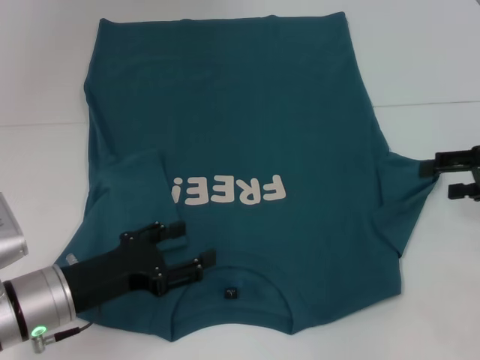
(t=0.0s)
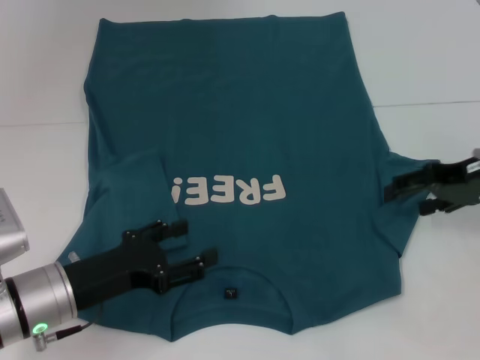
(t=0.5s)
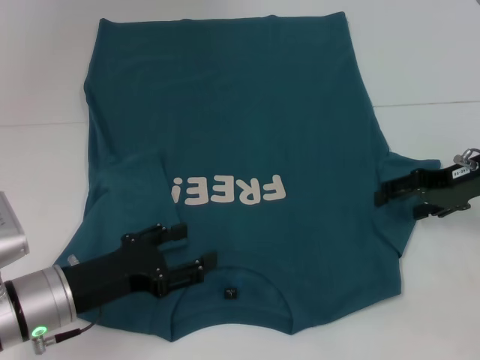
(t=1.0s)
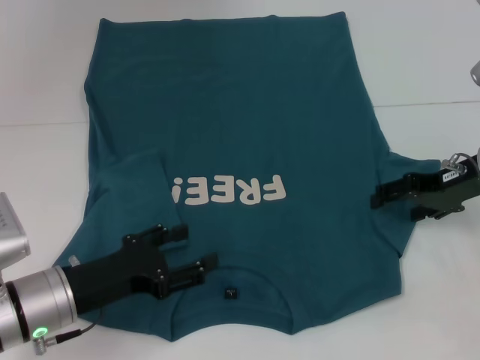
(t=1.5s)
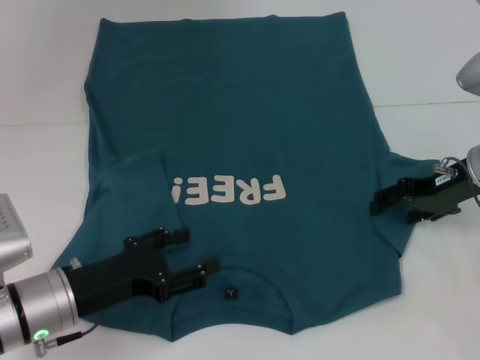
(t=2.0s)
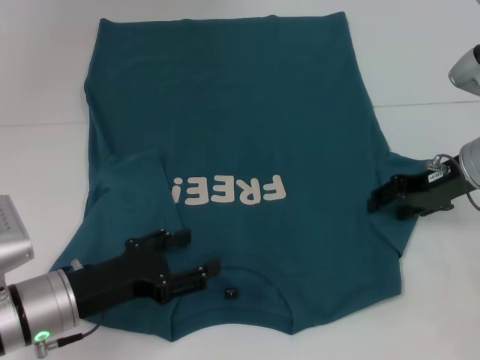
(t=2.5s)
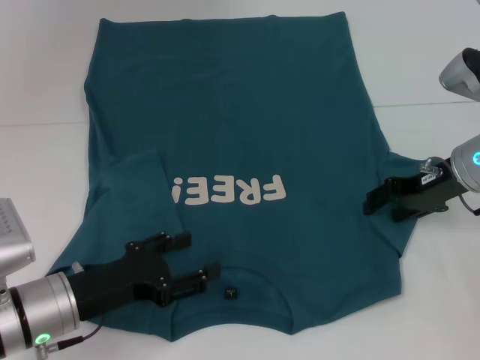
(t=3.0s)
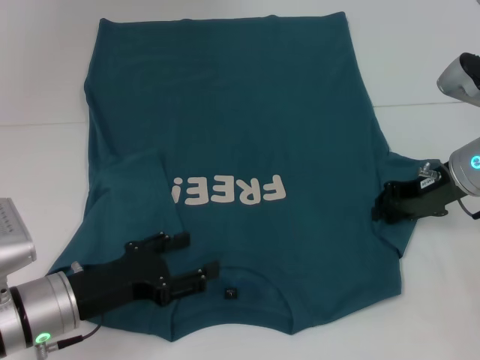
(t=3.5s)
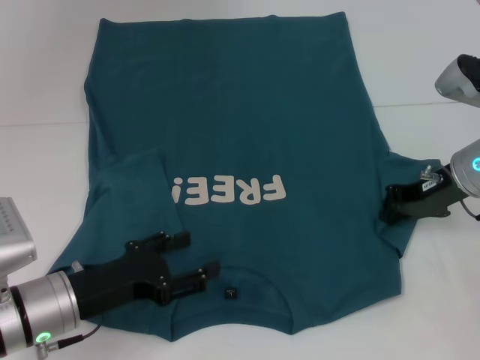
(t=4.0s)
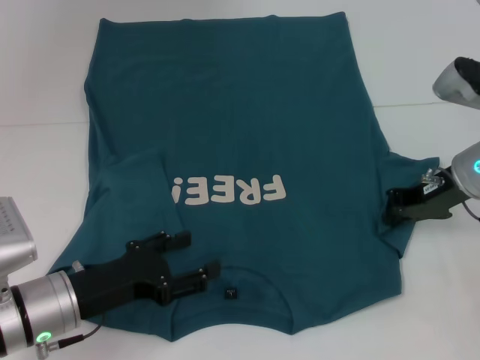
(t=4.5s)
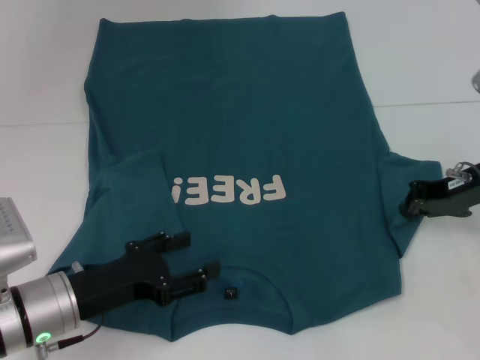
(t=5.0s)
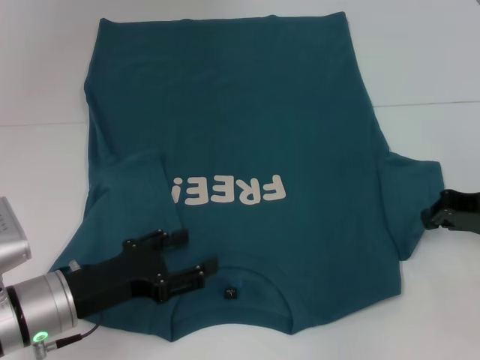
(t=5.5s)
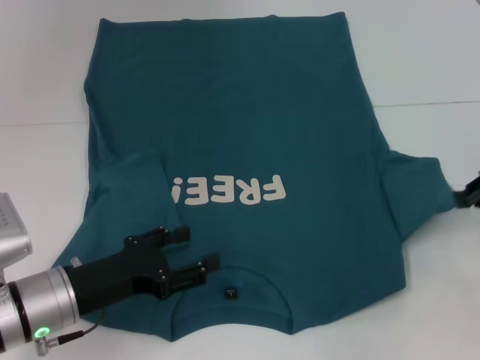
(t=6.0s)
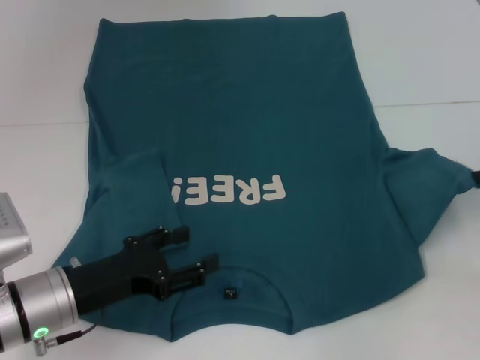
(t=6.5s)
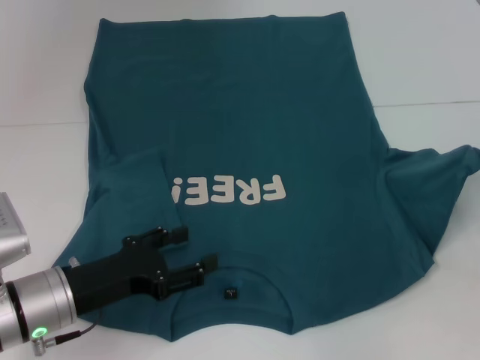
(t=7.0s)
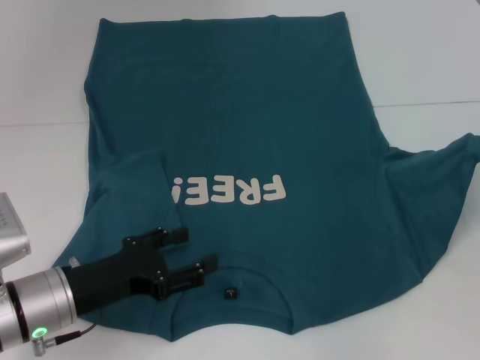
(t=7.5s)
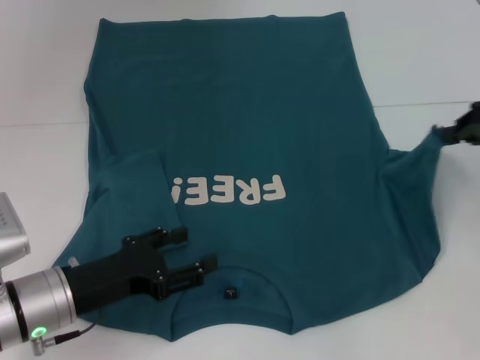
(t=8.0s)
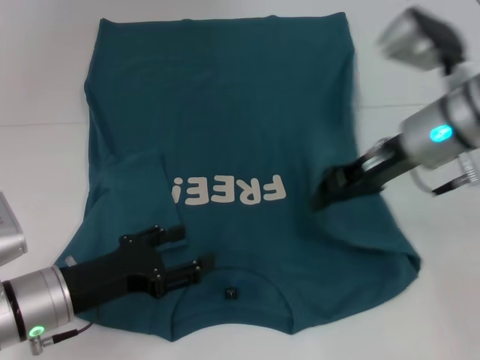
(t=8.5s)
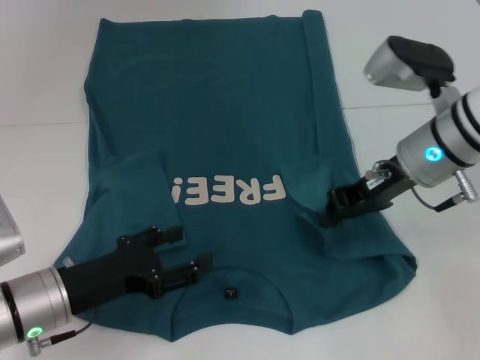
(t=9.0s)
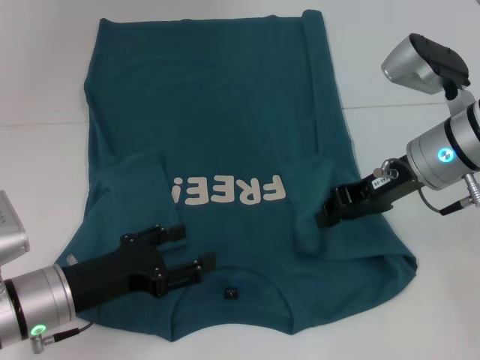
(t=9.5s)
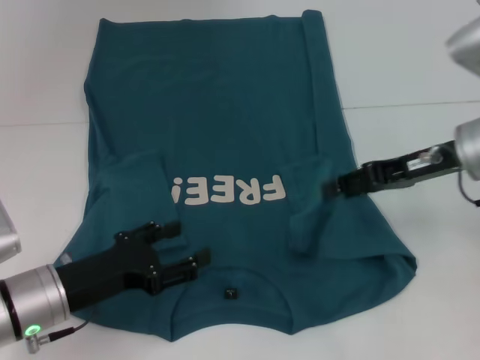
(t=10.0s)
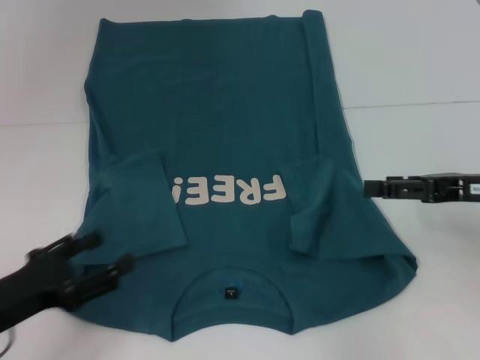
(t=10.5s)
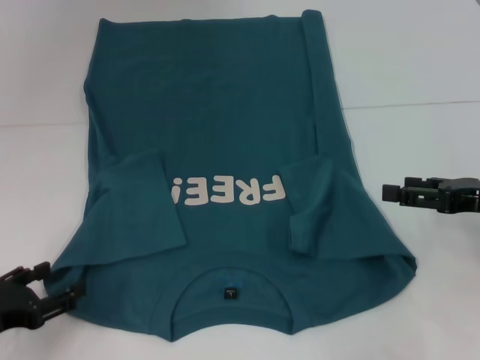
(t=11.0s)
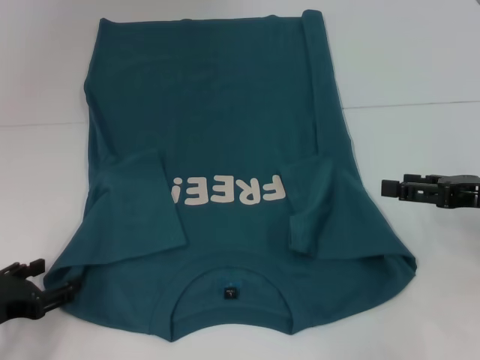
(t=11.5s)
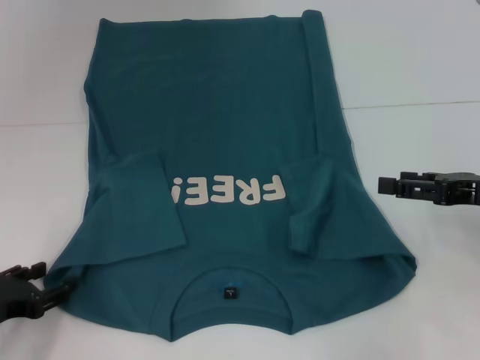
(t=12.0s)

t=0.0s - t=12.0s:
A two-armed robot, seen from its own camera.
Step, t=0.0s - t=9.5s: Fold the bottom right sleeve to the right.
t=0.0s - t=2.0s: The right gripper travels to the left by roughly 10 cm.
t=2.0s - t=4.0s: The right gripper closes its fingers.
t=4.0s - t=6.0s: The right gripper heads to the right and backward, covering approximately 10 cm.
t=6.0s - t=8.0s: The right gripper goes some 5 cm upward.
t=8.0s - t=10.0s: The right gripper moves to the left, roughly 10 cm, and opens its fingers.
t=10.0s - t=12.0s: The right gripper is displaced to the right and backward by some 10 cm, and opens up. Meanwhile the left gripper heads to the left, covering roughly 10 cm.

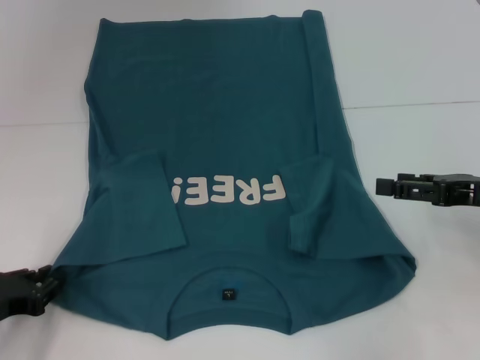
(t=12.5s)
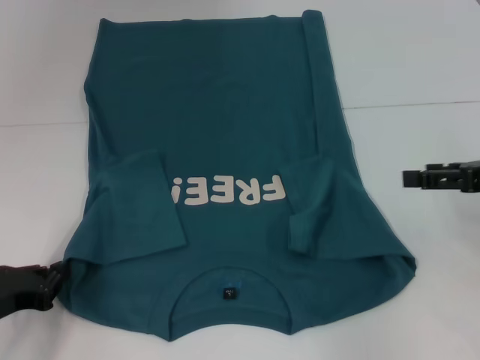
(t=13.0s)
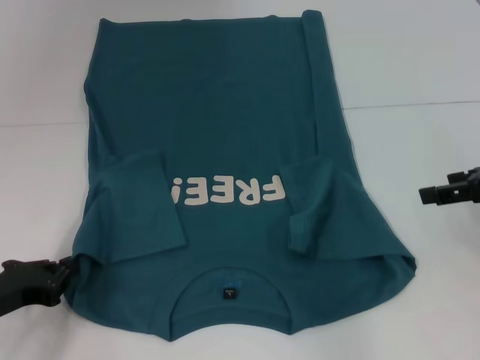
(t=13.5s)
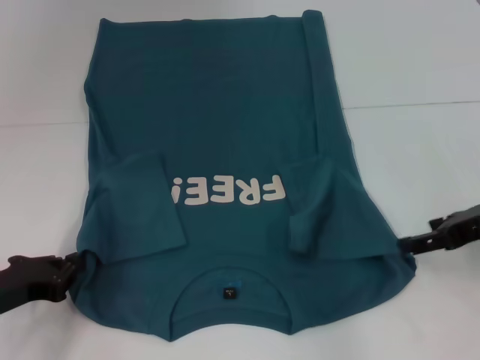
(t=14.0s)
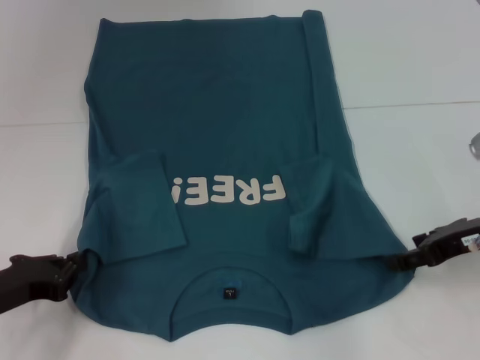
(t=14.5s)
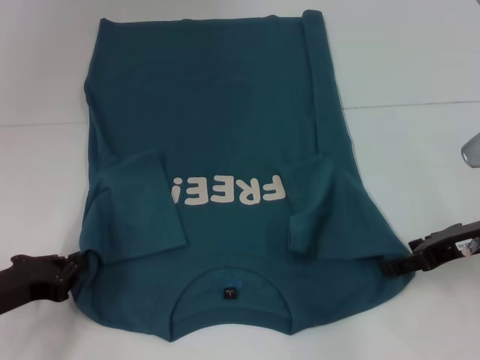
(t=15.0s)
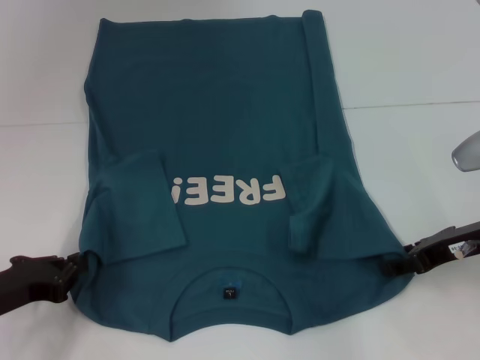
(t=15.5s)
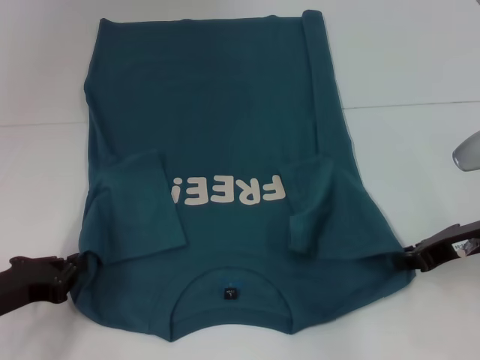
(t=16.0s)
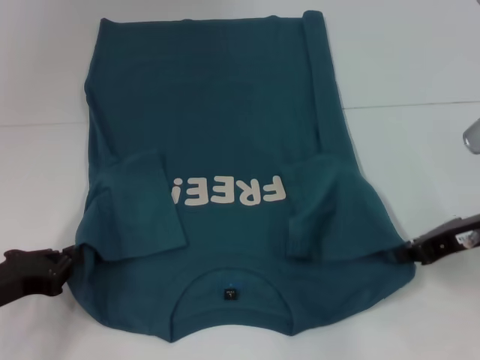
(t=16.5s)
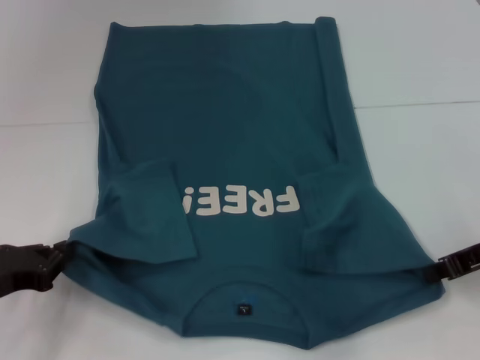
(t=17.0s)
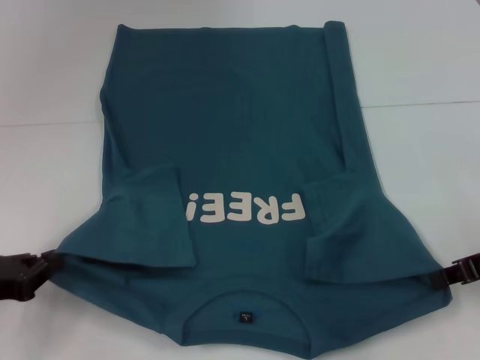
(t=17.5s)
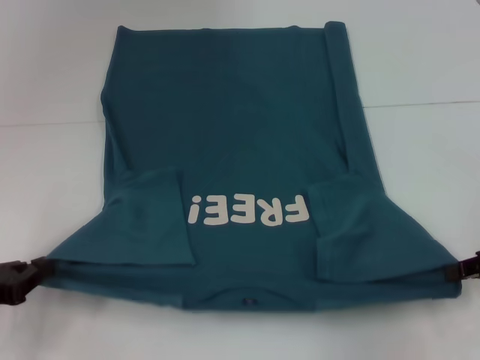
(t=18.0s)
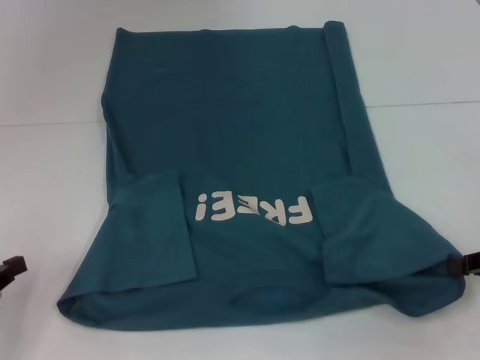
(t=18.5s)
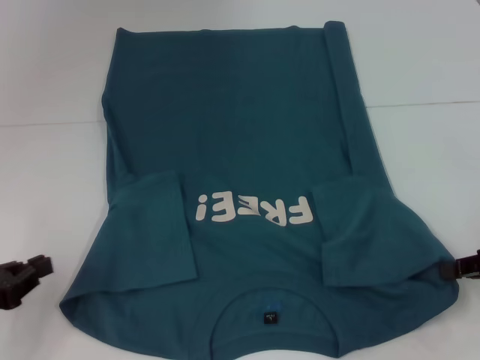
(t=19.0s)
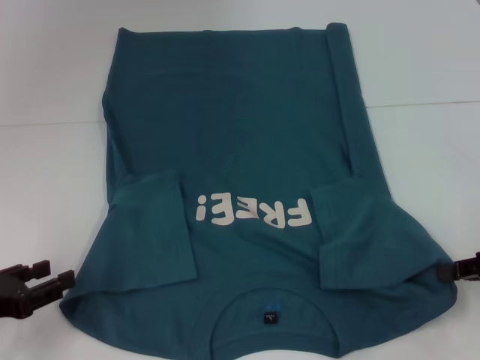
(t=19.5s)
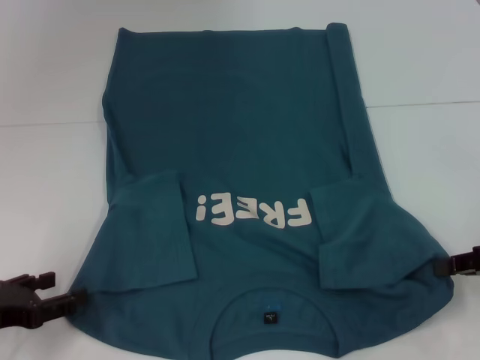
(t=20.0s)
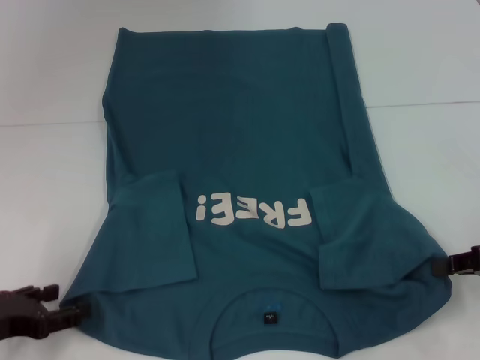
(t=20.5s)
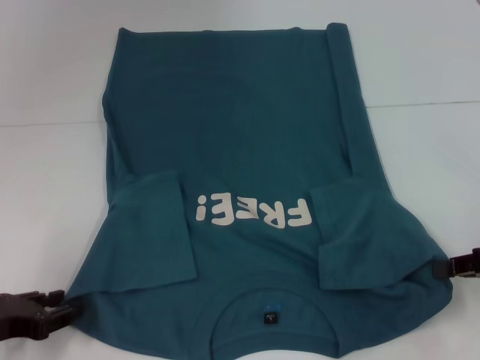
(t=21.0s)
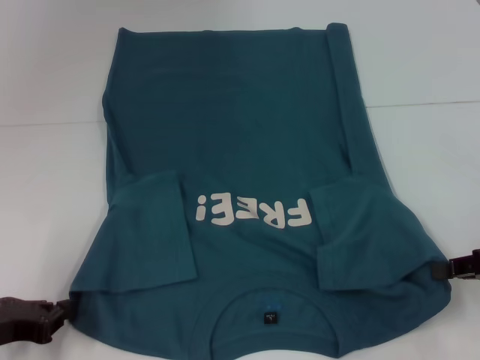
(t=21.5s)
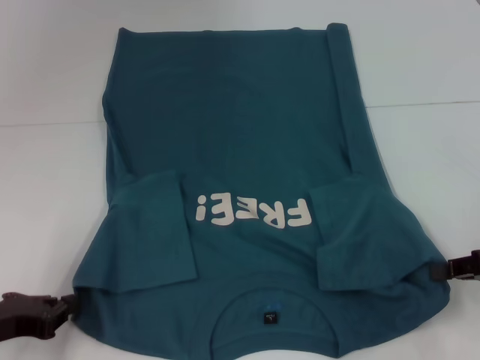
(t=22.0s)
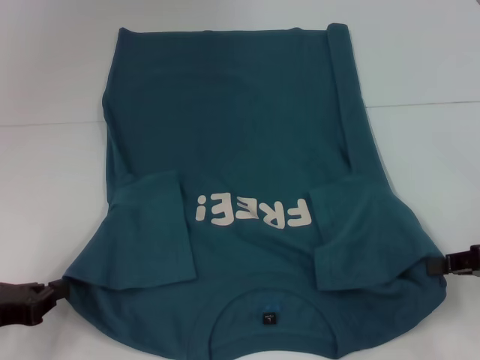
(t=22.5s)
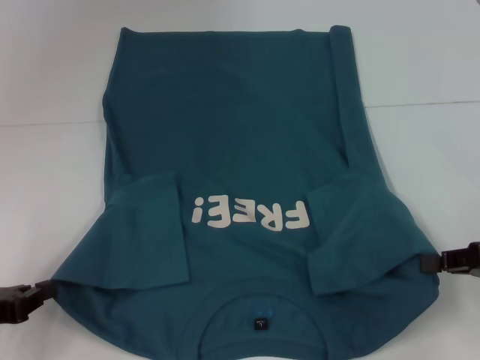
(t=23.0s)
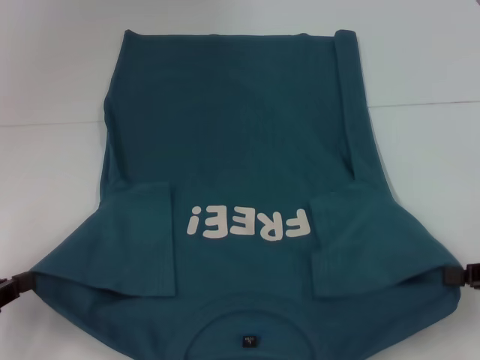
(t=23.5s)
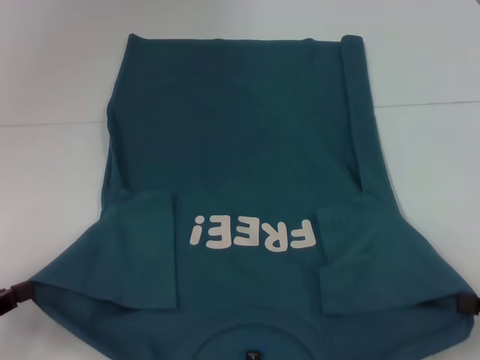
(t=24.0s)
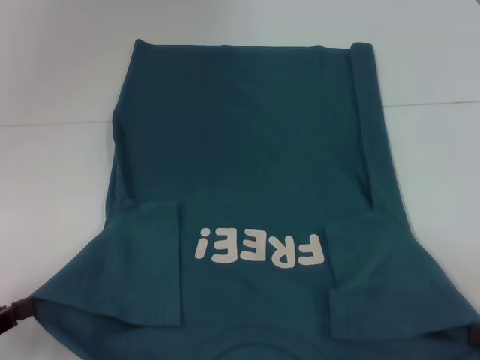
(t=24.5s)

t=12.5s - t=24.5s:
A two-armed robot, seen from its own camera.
Step, t=12.5s - t=16.0s: Grab the bottom right corner with your right hand.
Step, t=16.5s - t=22.0s: Grab the bottom left corner with your left hand.
t=14.5s - t=16.5s: The right gripper closes up.
t=16.5s - t=18.5s: The left gripper is displaced to the left by some 5 cm, while the right gripper heads to the right, covering some 10 cm.
t=18.5s - t=20.5s: The left gripper opens.
t=20.5s - t=22.5s: The left gripper closes.
t=22.5s - t=24.5s: The right gripper is displaced backward by roughly 10 cm; the left gripper shifts by about 5 cm.

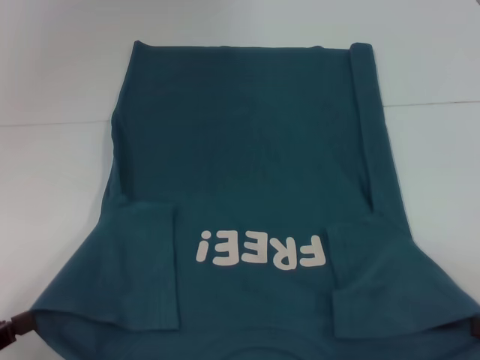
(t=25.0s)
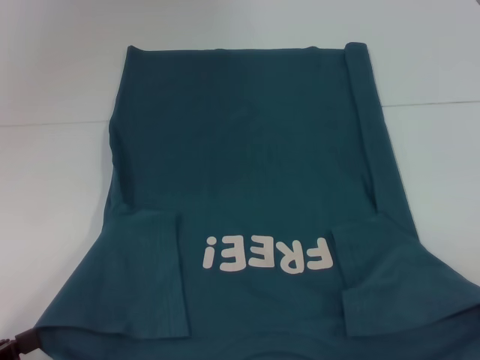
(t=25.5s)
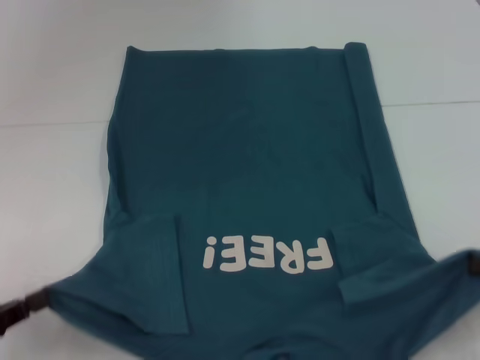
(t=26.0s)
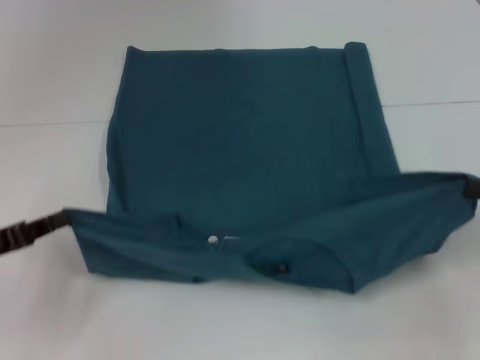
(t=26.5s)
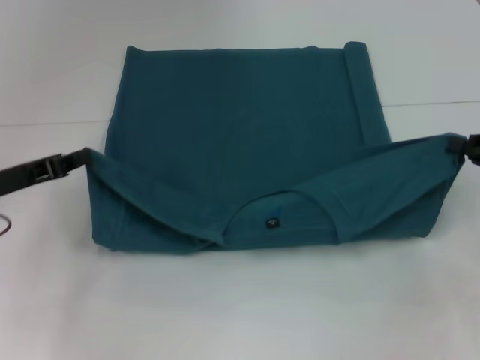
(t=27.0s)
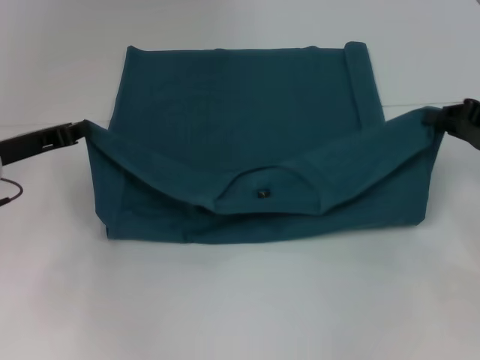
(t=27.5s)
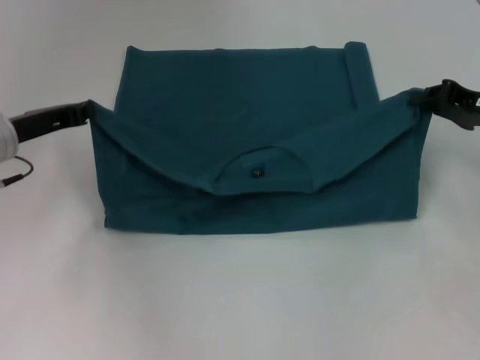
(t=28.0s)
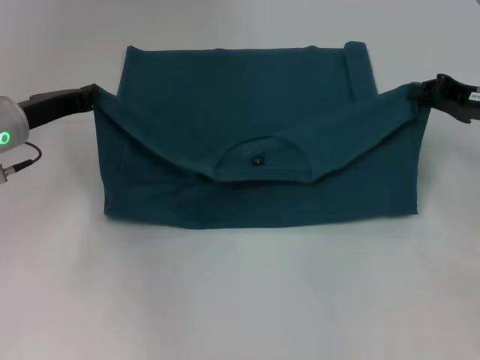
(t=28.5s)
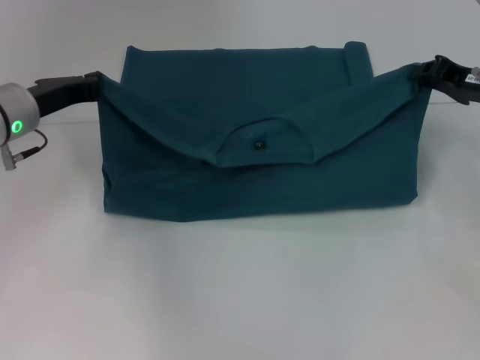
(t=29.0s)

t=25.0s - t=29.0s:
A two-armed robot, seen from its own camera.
t=25.0s - t=27.0s: Both grippers travel together forward, roughly 15 cm.
t=27.0s - t=29.0s: The left gripper moves forward and to the right, approximately 10 cm; the right gripper shifts roughly 10 cm forward and to the left.
